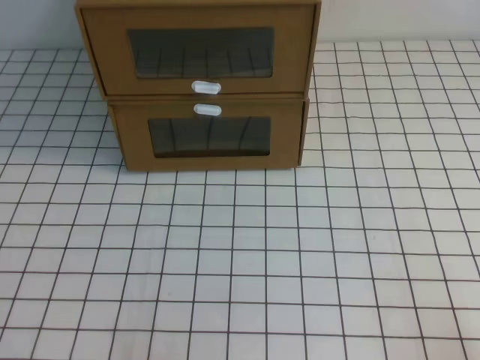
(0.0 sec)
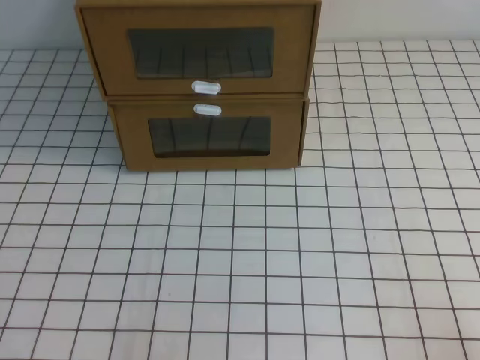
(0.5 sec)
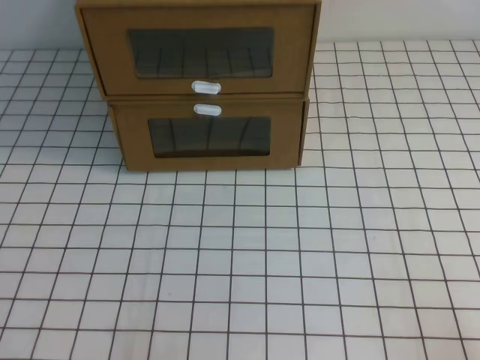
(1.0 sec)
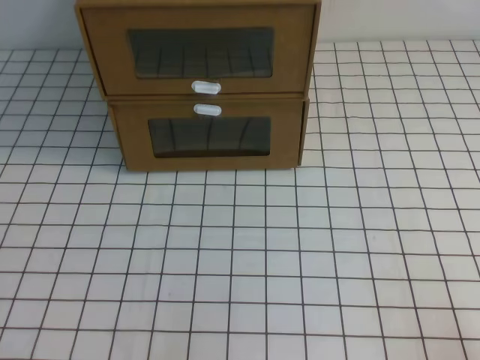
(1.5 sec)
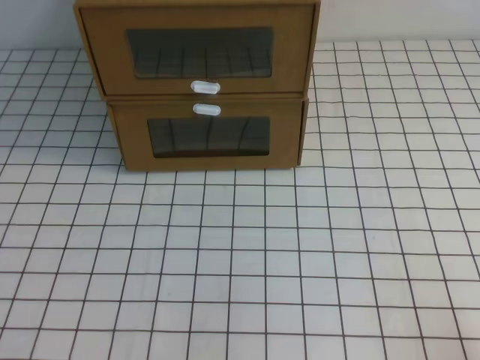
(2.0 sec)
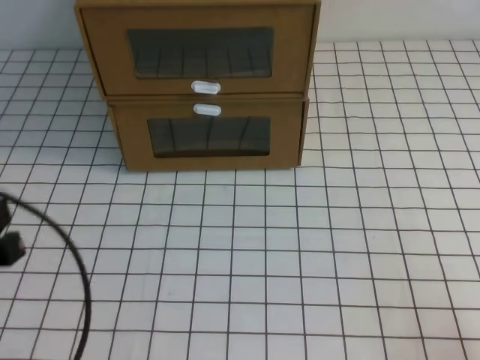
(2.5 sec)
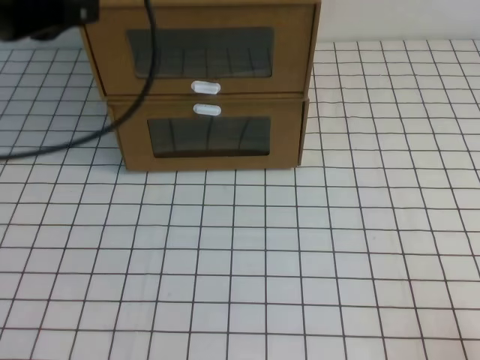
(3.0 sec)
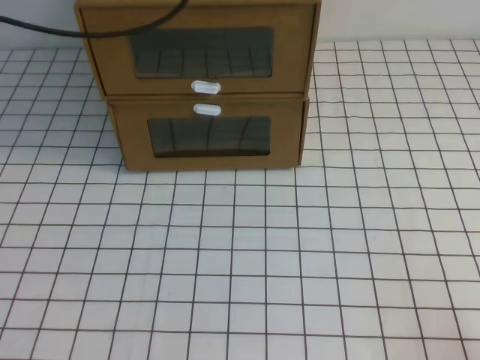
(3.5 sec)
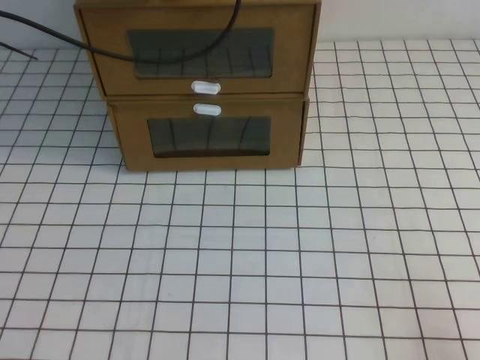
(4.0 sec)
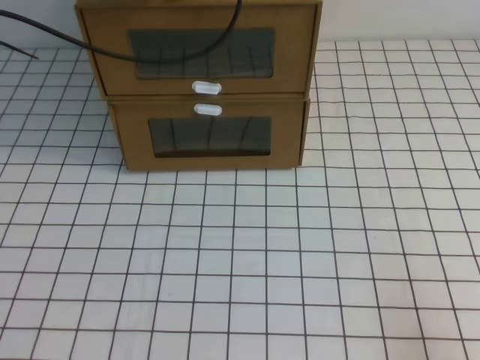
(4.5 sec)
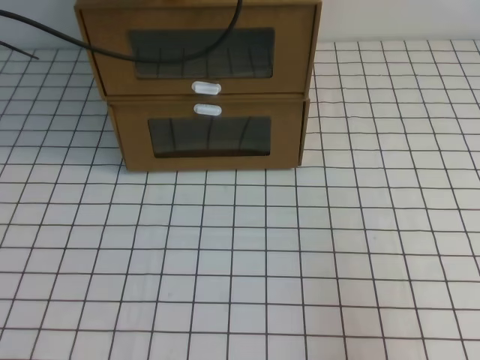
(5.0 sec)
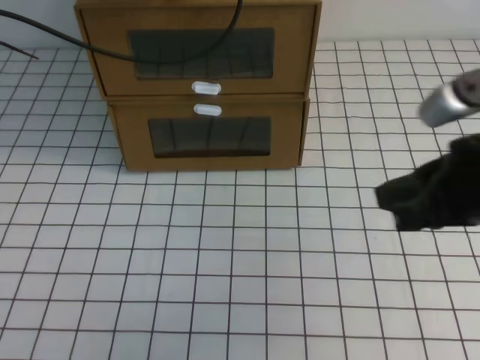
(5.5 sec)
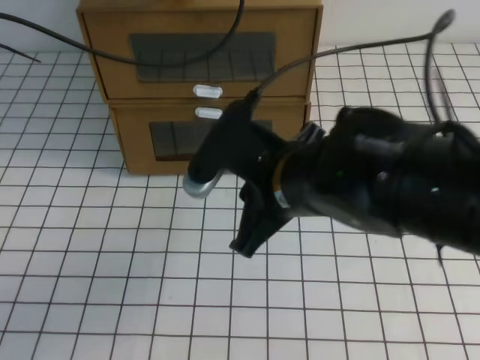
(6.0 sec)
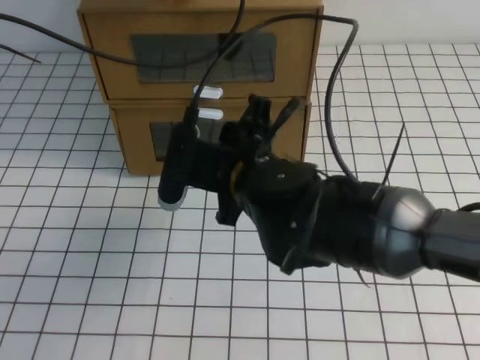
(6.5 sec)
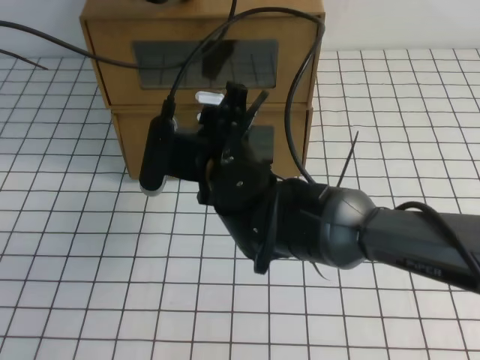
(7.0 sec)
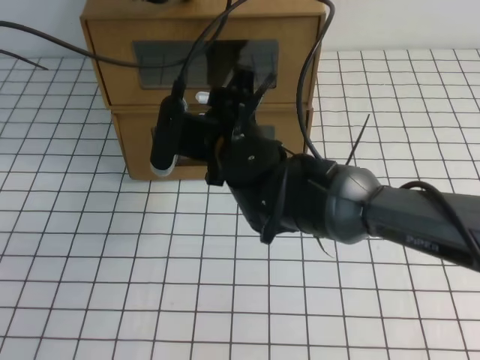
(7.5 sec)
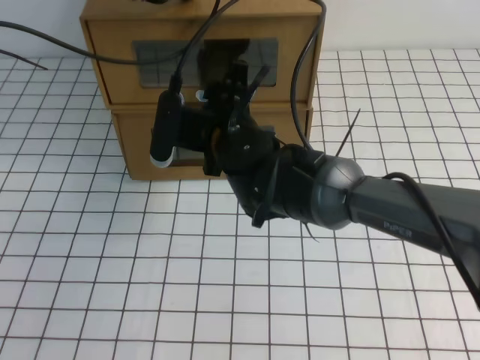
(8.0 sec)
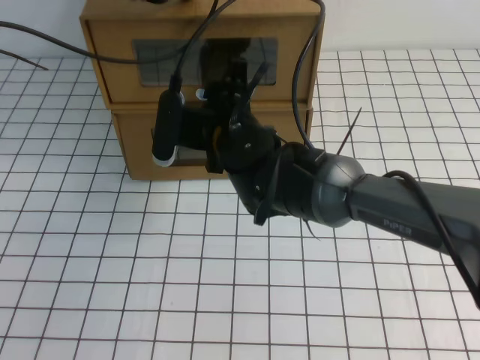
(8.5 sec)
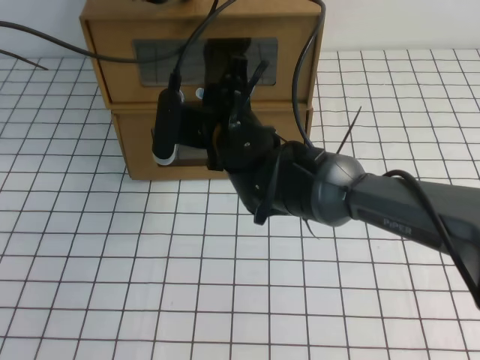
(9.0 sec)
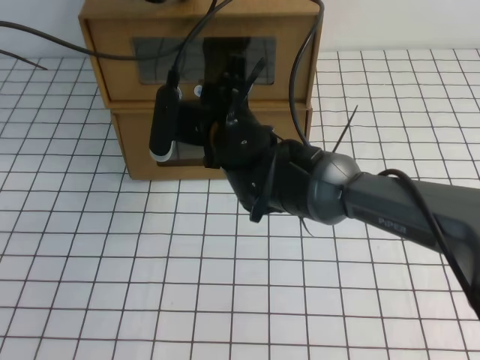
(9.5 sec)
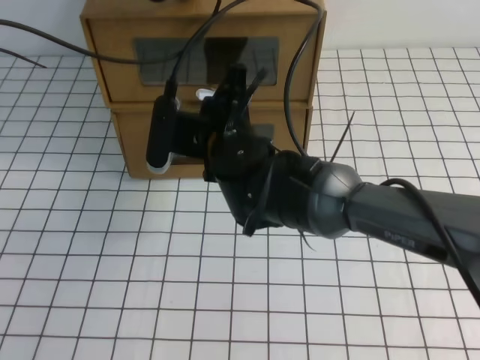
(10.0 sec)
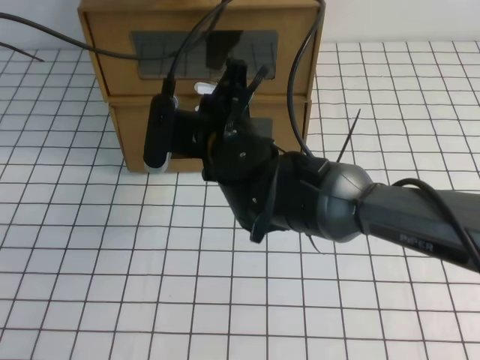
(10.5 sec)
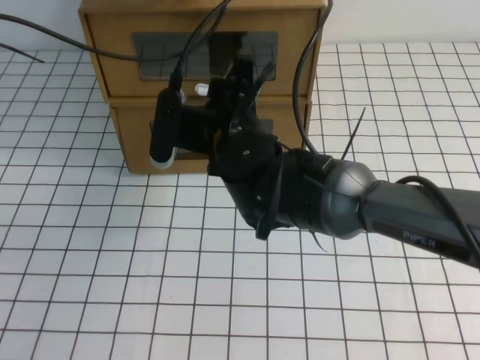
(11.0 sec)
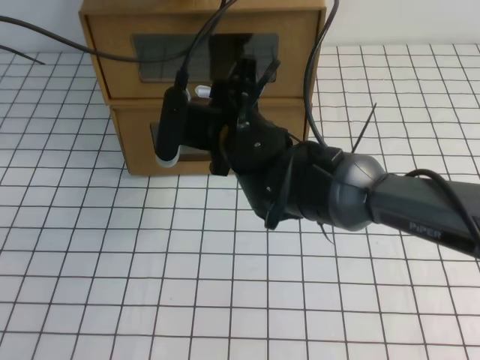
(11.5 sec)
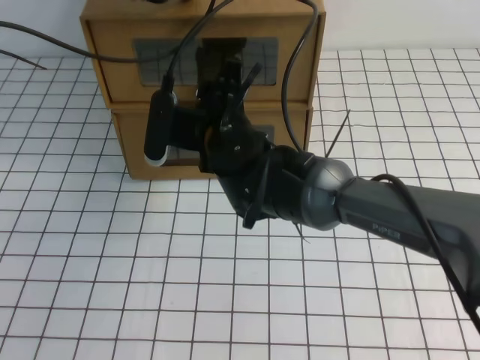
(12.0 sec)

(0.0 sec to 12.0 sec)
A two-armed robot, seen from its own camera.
Task of the whole recording: open the shoebox on the white tablecloth.
2.0 sec - 4.0 sec: The left gripper goes some 40 cm forward and upward.
4.0 sec - 6.0 sec: The right gripper goes about 35 cm to the left, forward and upward.
6.0 sec - 8.0 sec: The right gripper shifts approximately 15 cm forward and to the left, and opens up.
8.0 sec - 10.0 sec: The right gripper closes.
10.0 sec - 12.0 sec: The right gripper opens up.

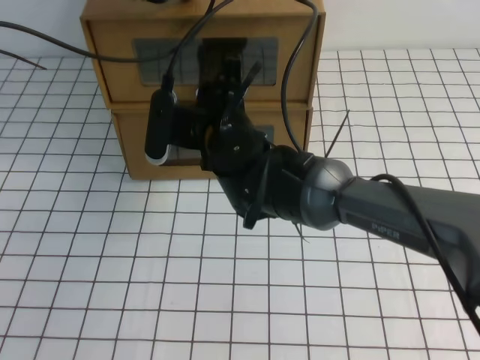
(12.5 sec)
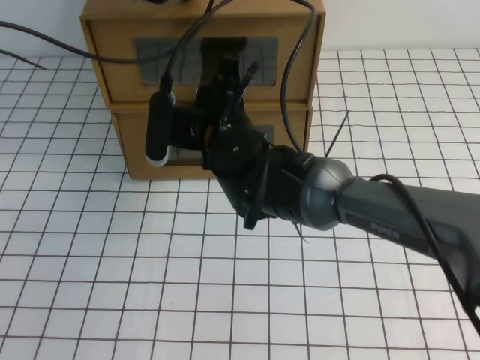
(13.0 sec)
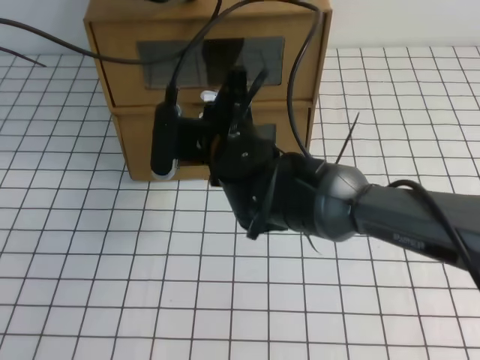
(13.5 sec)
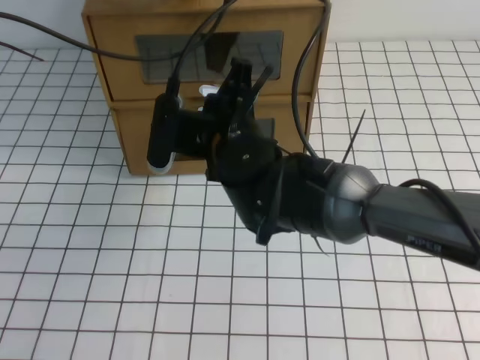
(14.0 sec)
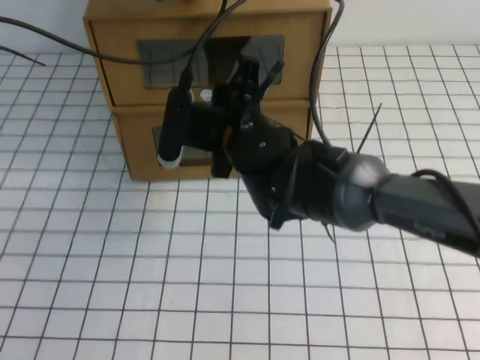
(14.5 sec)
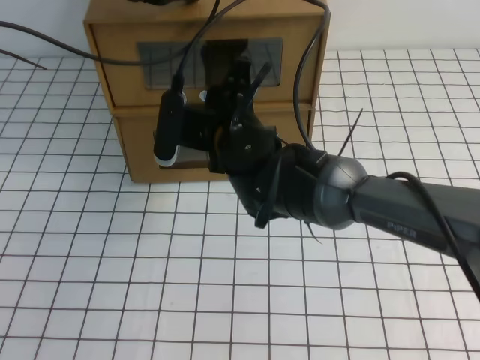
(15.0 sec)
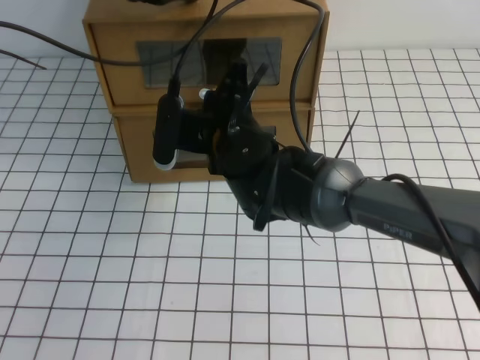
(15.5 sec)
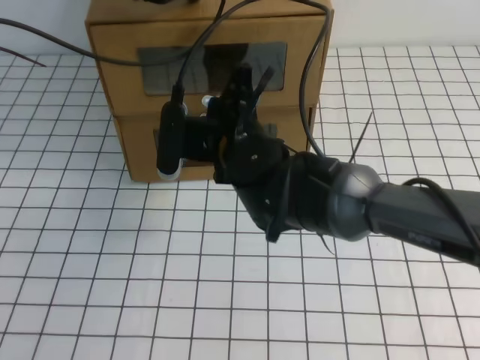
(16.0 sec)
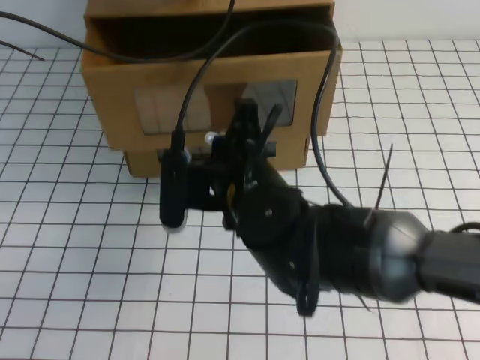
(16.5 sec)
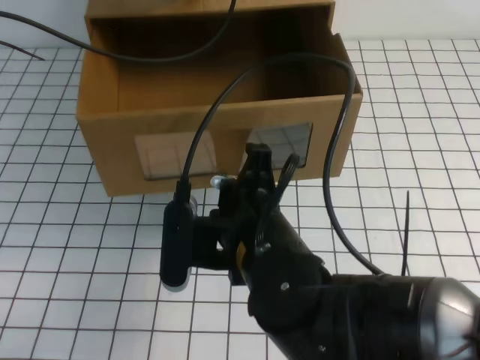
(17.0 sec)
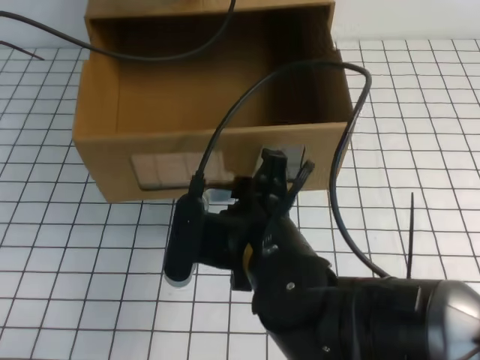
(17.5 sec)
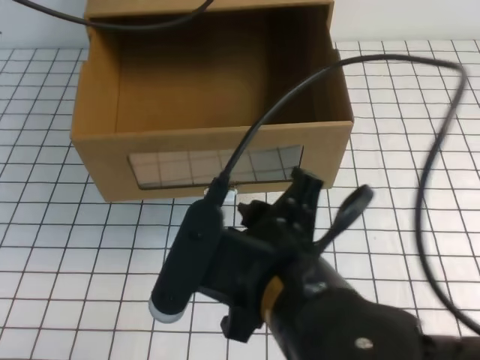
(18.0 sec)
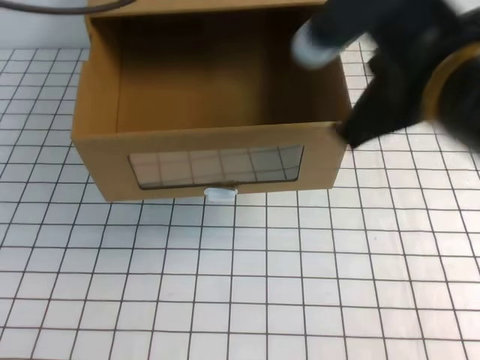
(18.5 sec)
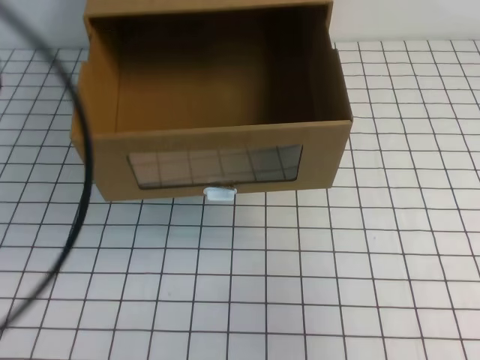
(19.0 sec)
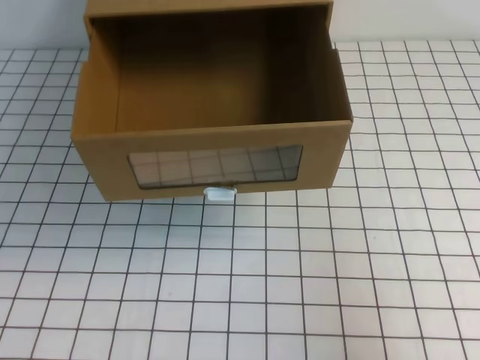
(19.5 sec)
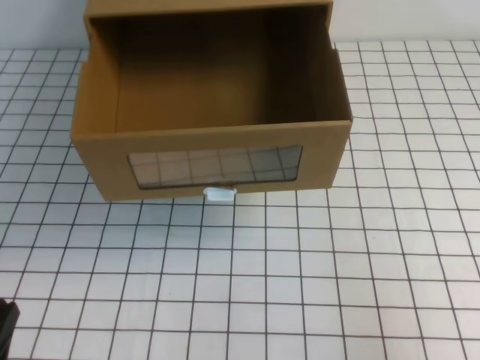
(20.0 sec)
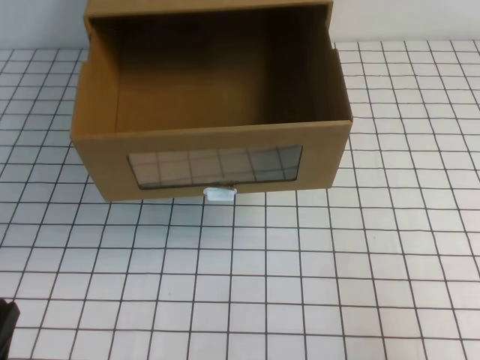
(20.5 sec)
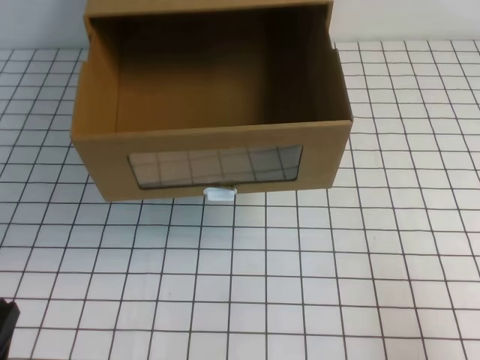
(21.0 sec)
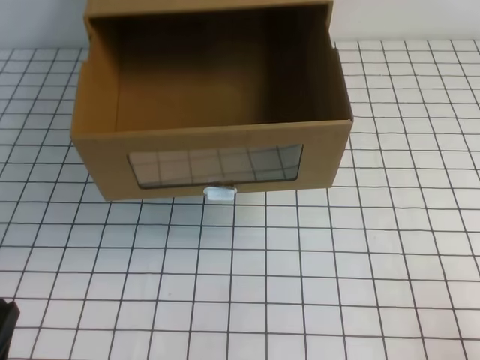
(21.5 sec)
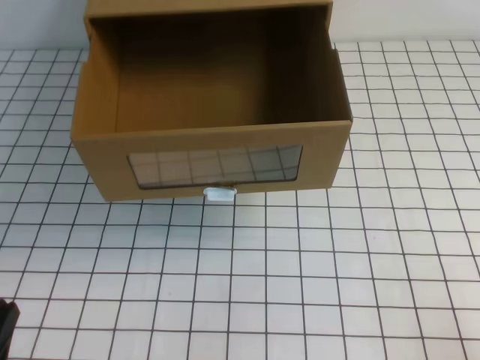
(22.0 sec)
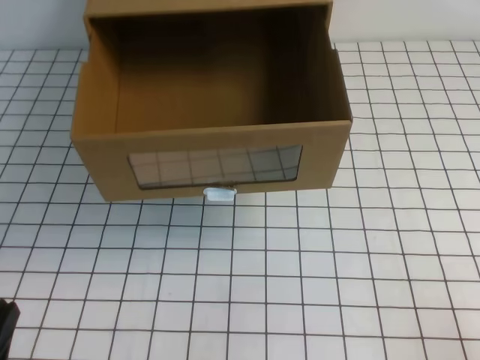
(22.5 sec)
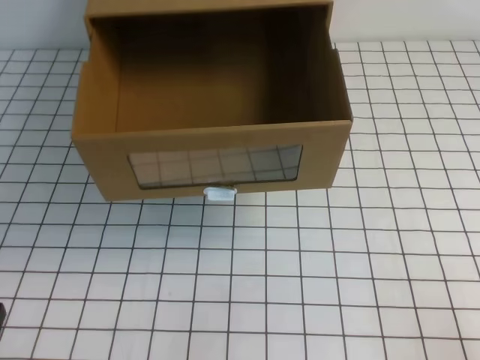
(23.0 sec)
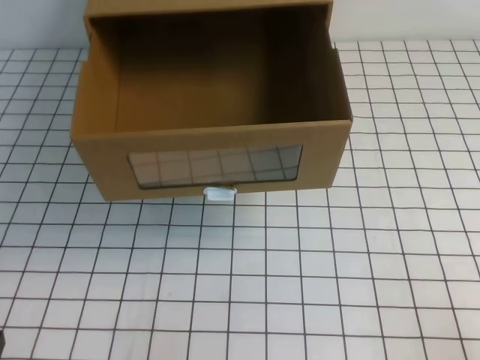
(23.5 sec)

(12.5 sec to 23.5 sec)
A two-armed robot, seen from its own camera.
Task of the whole recording: open the shoebox on the white tablecloth.
Step, 12.5 sec - 23.5 sec: Open the shoe box.
12.5 sec - 14.5 sec: The right gripper closes, then reopens.
14.5 sec - 16.0 sec: The right gripper closes its fingers.
16.0 sec - 18.0 sec: The right gripper moves backward, some 20 cm, and opens up. Meanwhile the left gripper moves upward, approximately 5 cm.
18.0 sec - 20.0 sec: The right gripper travels to the right by approximately 25 cm, and closes, while the left gripper goes approximately 40 cm backward and downward.
20.0 sec - 21.5 sec: The right gripper heads downward and backward, covering approximately 10 cm.
